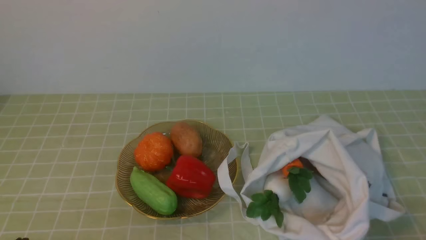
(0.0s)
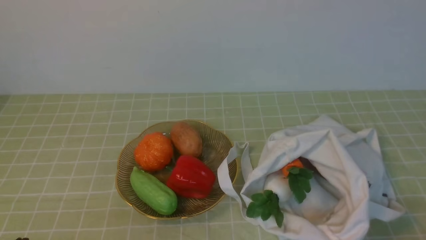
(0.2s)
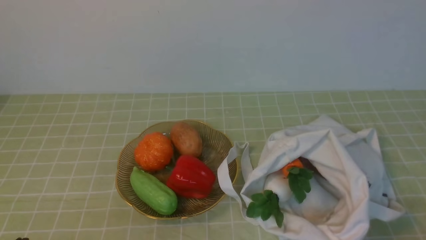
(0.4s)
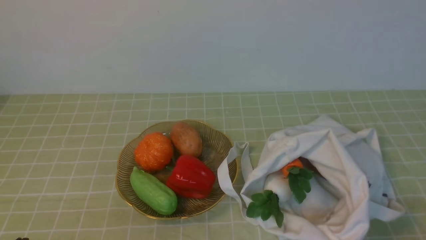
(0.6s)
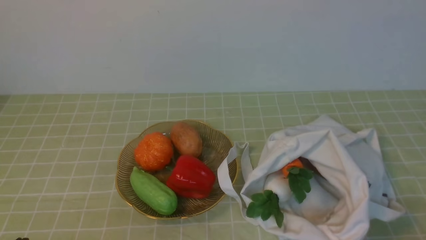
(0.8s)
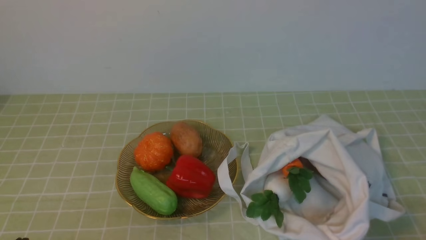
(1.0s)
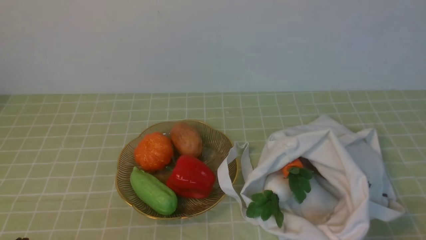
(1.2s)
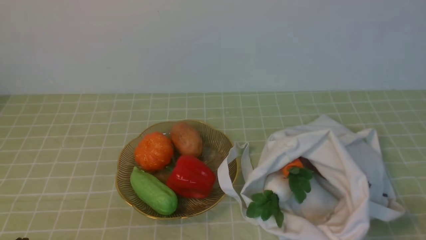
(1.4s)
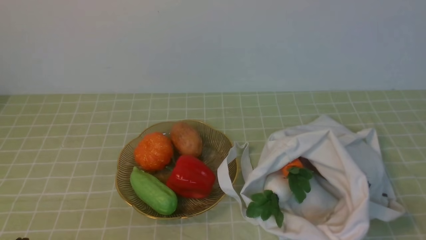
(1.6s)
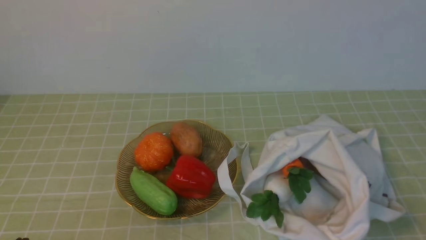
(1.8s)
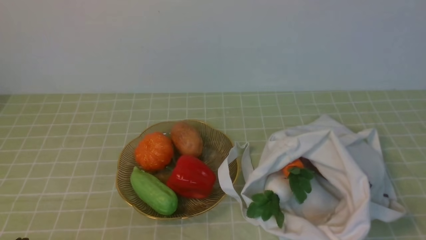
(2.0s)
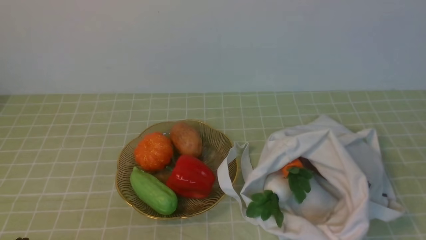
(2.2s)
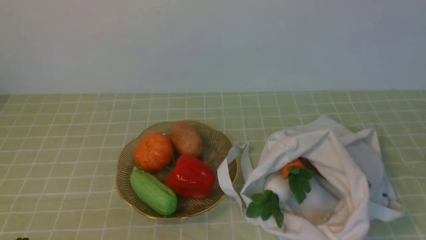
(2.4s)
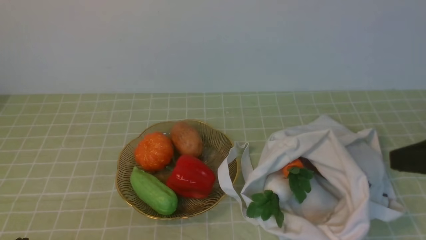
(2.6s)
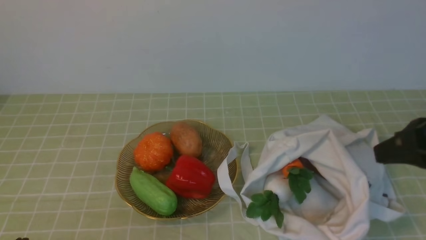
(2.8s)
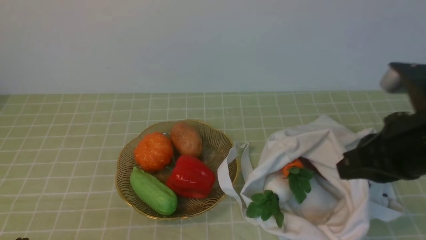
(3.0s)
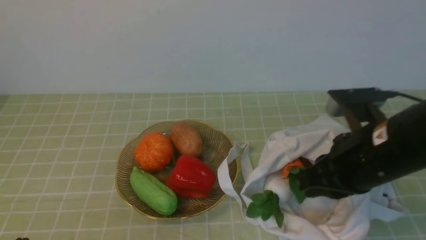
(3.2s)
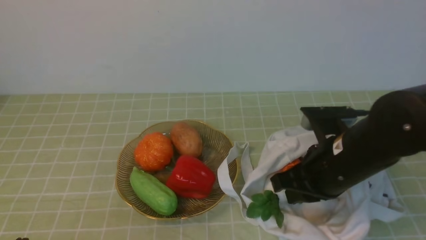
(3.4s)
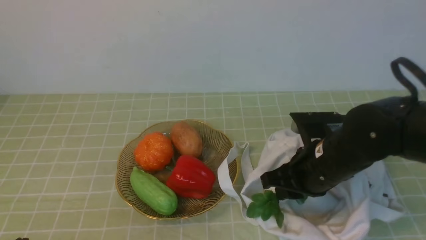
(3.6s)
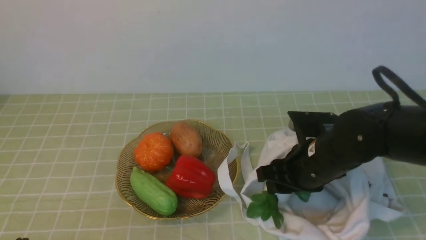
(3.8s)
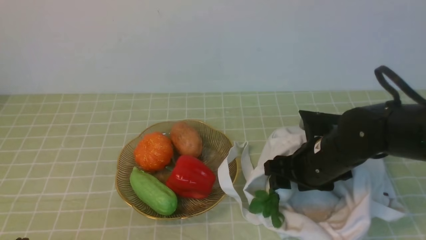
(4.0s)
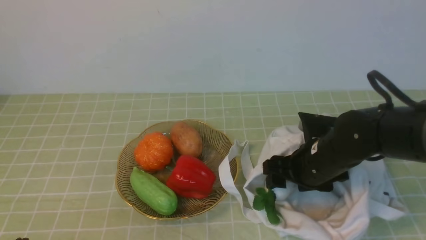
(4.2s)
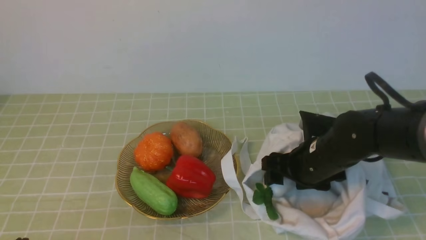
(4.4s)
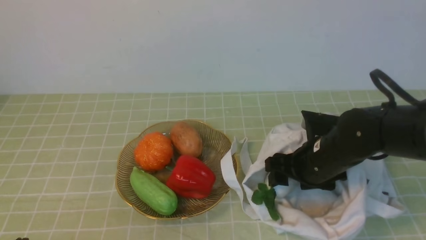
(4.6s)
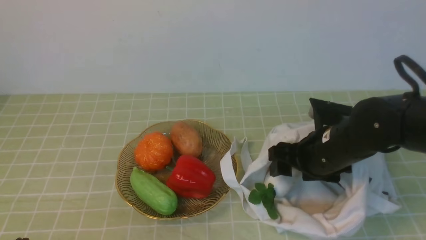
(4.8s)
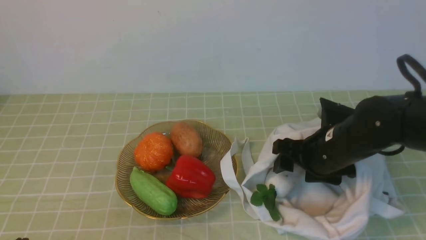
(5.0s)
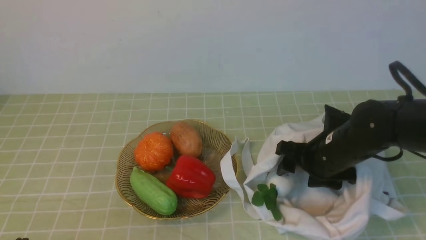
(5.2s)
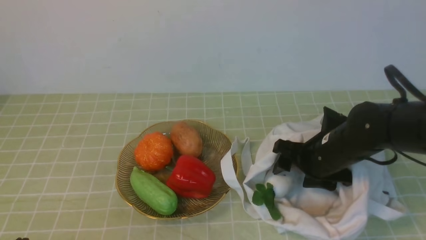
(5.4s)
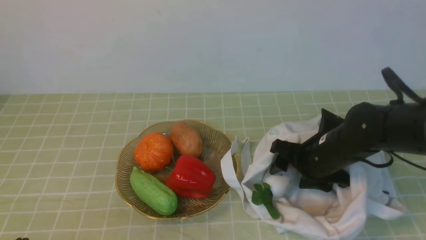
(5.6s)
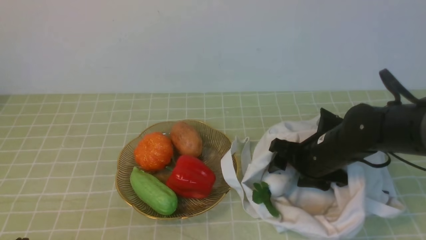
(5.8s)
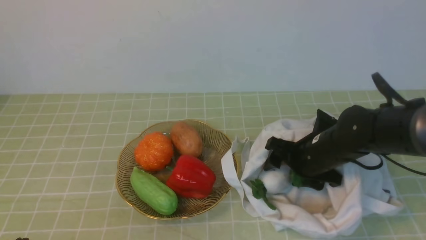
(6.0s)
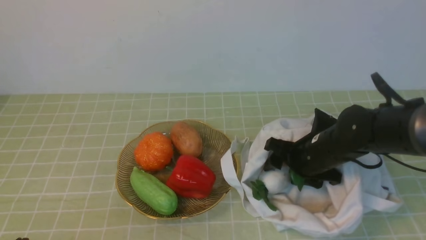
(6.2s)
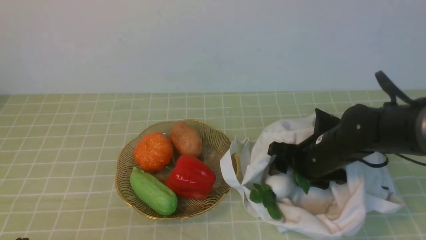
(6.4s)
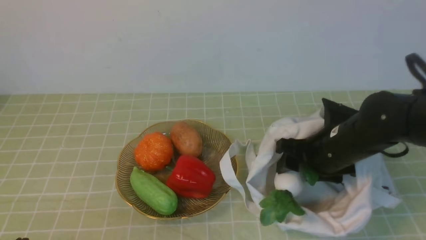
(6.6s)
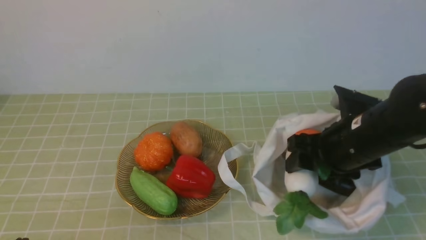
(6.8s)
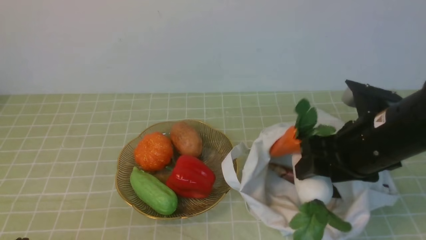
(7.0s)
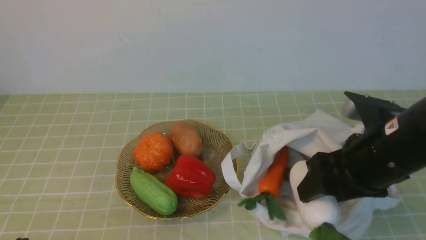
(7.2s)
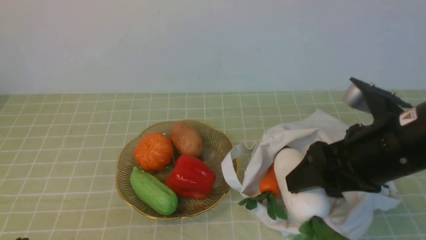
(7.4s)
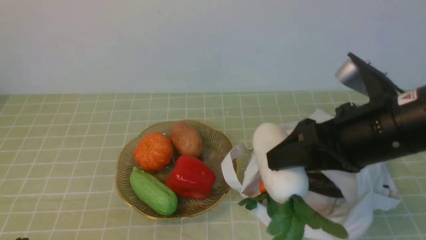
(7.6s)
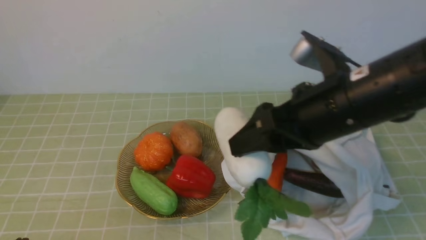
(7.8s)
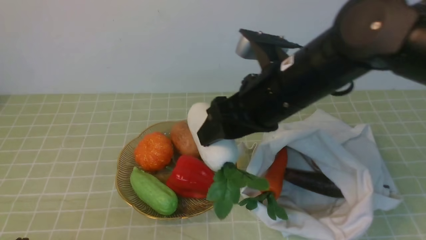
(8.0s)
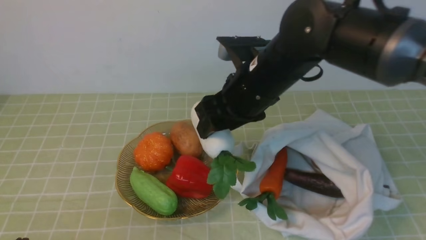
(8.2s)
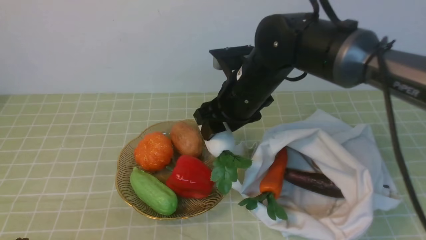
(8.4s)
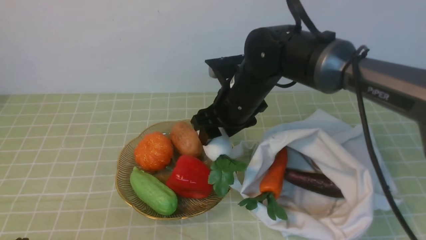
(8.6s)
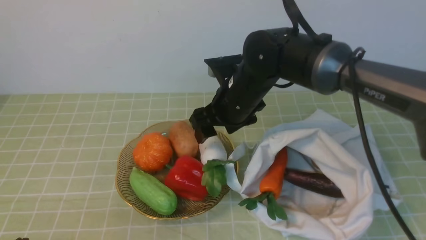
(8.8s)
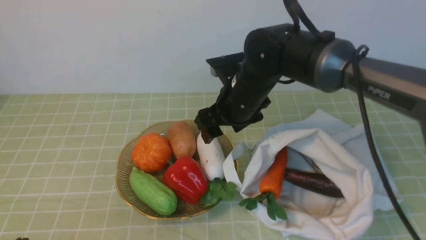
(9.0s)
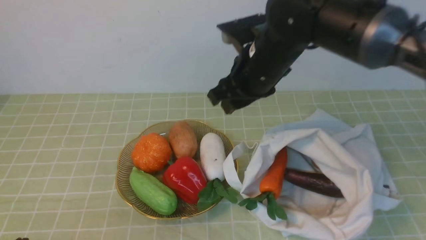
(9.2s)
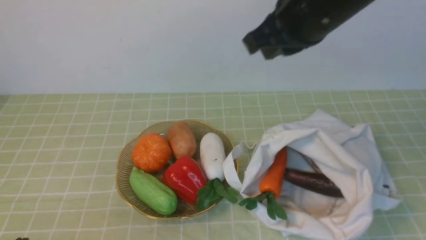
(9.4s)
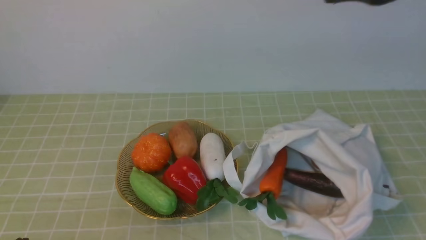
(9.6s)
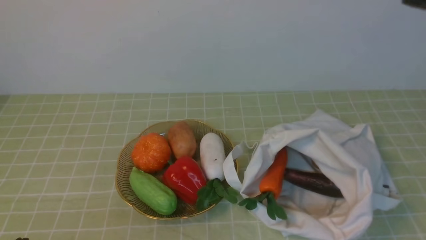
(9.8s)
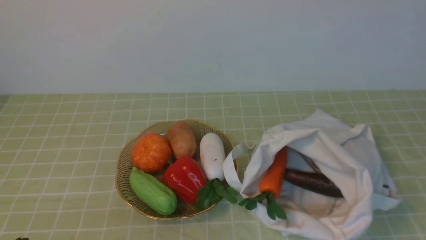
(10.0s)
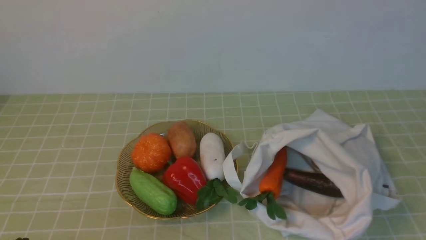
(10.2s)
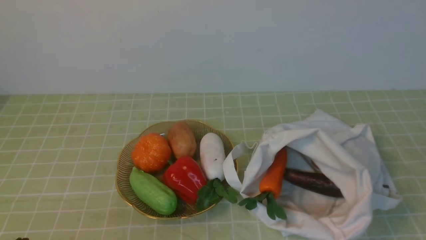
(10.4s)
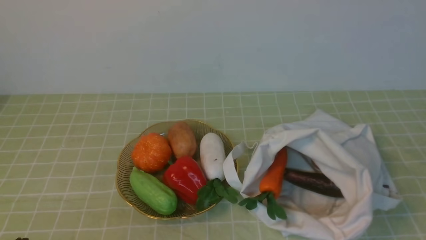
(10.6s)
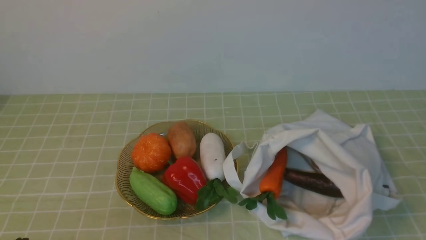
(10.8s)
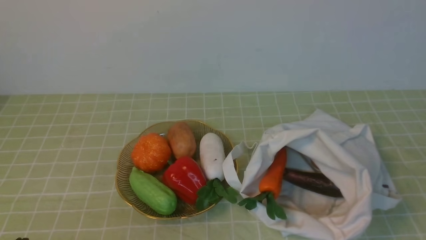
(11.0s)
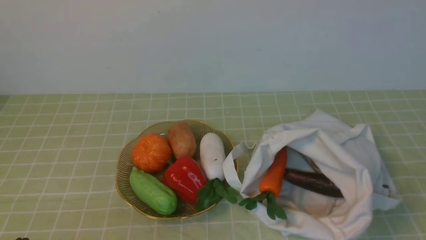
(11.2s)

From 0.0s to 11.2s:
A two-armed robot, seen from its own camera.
Task of the whole recording: take vegetables from bag on green coffee tablecloth place on plate.
Step, from 0.0s to 6.0s: Grasp the radish with right gripper.
Step, from 6.2s to 8.8s: Place the radish on the plate with right gripper.
From 1.6s to 3.2s: The right gripper heads forward, to the left and upward, covering some 20 cm.
From 3.2s to 4.8s: The right gripper travels downward and forward by roughly 10 cm, and opens.
From 4.8s to 6.4s: The grippers stay close to where they were, moving slightly.
From 6.4s to 8.0s: The right gripper heads upward and to the left, covering some 15 cm.
From 8.0s to 9.6s: The right gripper heads upward, to the right and backward, covering roughly 20 cm, and closes up.

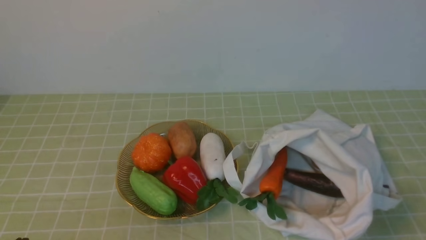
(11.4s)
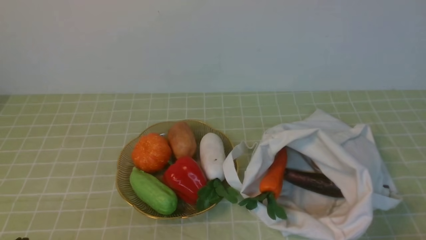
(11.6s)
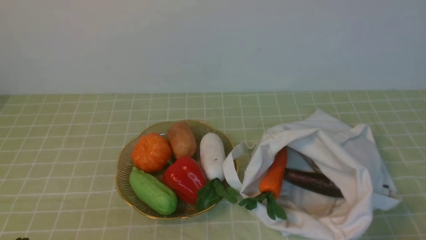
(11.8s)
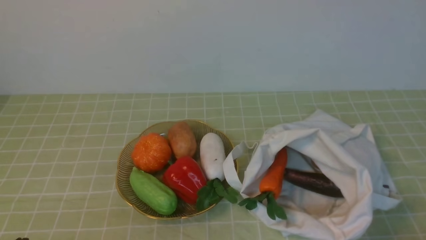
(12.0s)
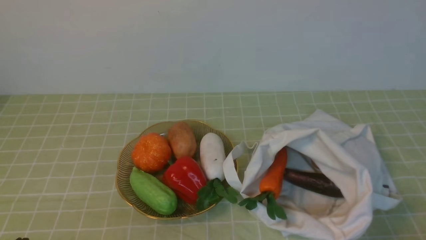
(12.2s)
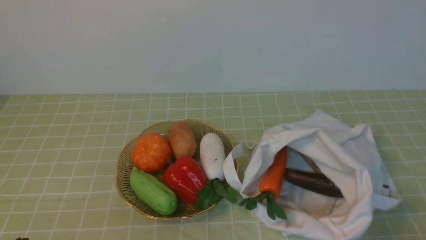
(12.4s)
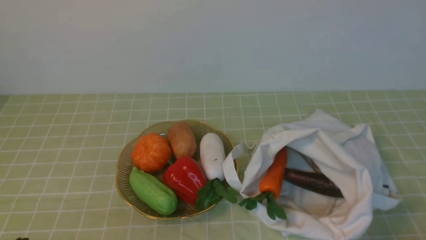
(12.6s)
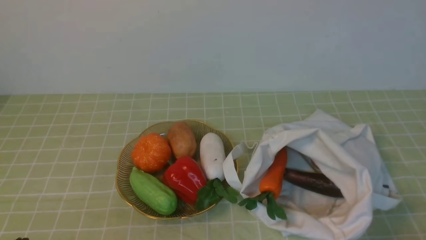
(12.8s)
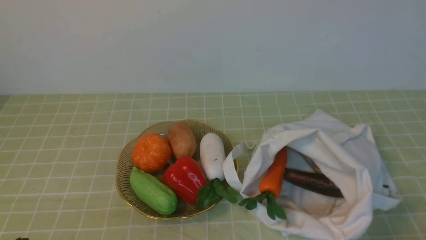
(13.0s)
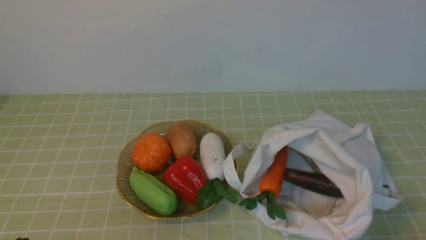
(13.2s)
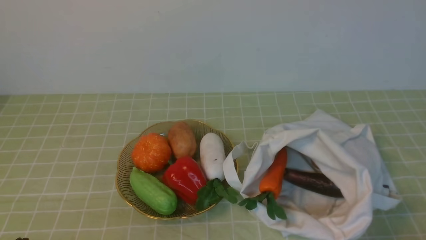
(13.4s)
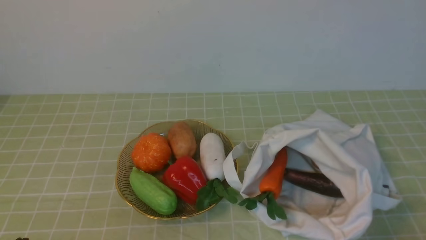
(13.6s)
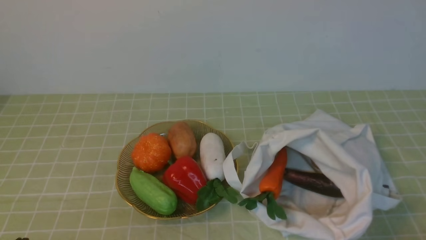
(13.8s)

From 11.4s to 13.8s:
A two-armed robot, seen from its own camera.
Task of the whole recording: take vegetables from bag on green coffee tablecloth place on plate.
From 12.6s to 13.8s: The two grippers keep their place.

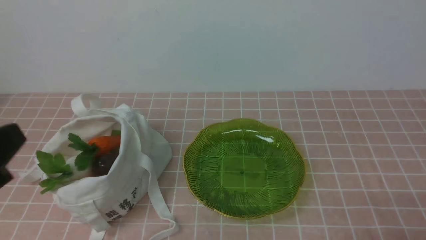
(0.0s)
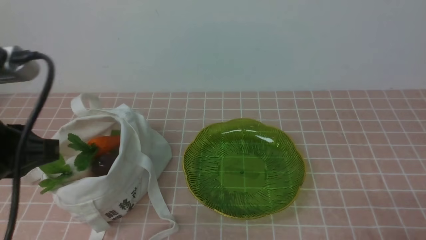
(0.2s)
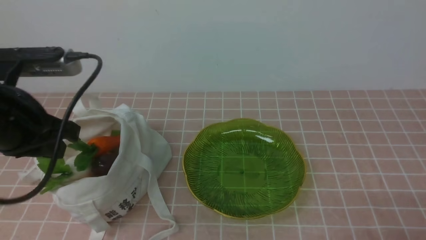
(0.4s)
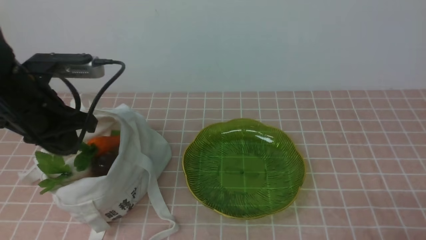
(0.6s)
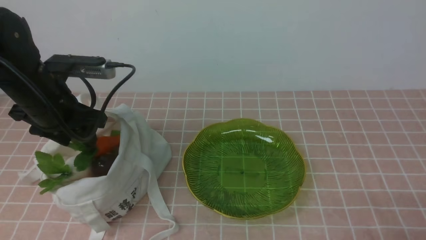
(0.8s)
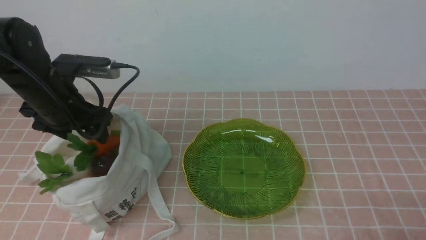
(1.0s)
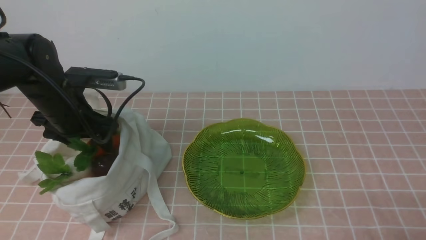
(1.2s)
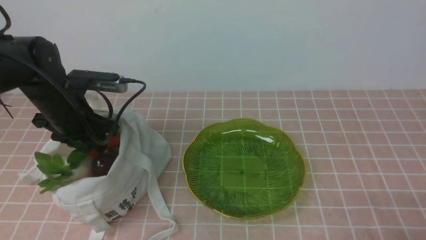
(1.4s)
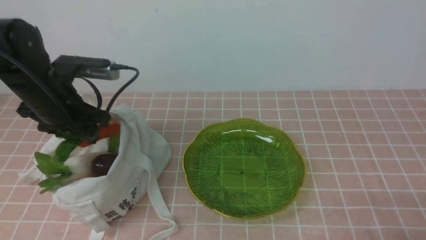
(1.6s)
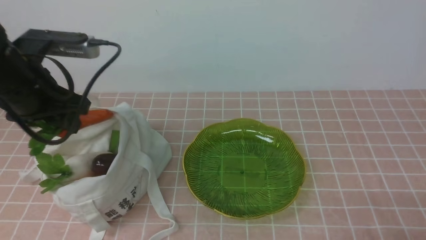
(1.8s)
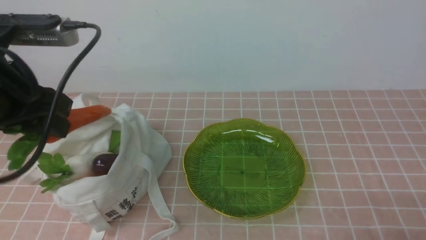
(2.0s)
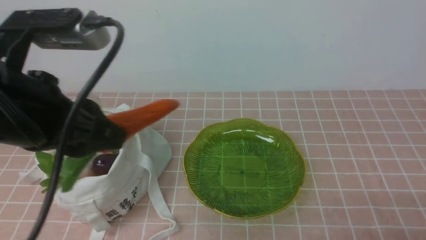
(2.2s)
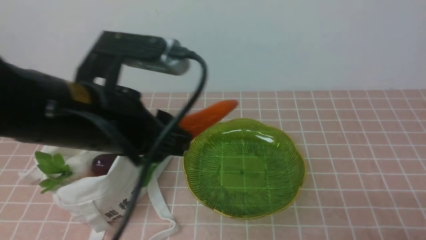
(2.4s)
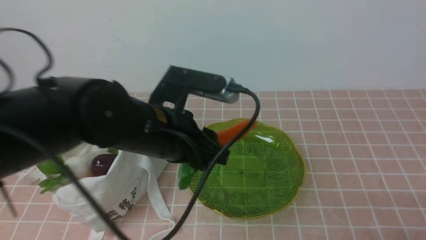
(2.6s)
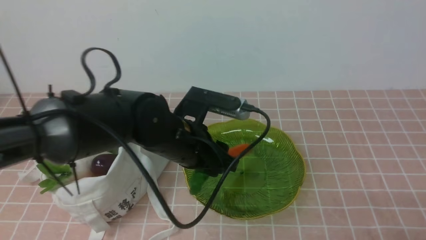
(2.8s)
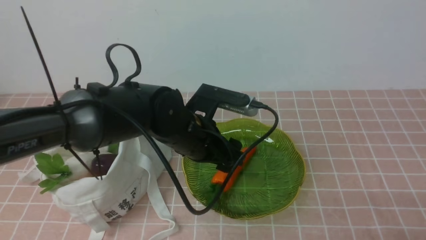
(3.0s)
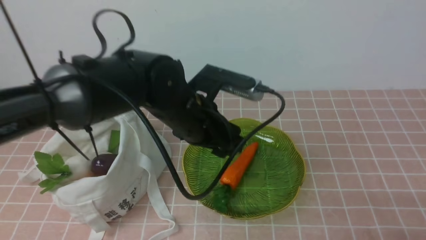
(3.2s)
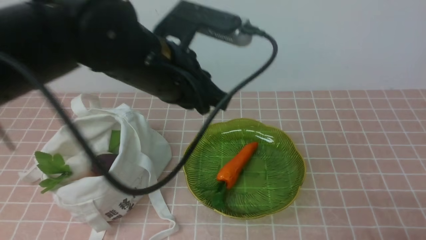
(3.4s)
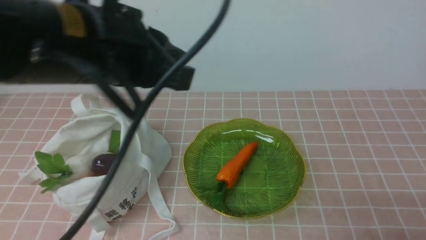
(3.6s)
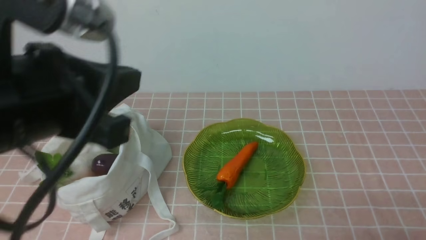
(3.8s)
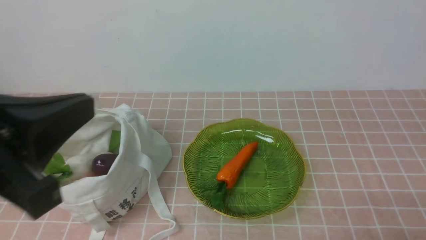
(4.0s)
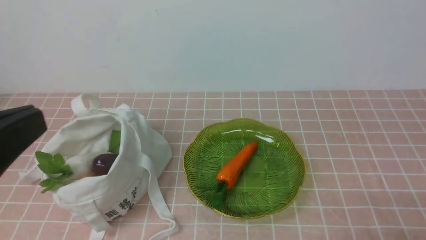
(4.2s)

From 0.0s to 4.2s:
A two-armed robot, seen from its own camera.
Task of the whole recording: take vegetables from bag on pink coffee tablecloth place on plate.
Step, from 0.0s to 1.2s: Grasp the carrot with left gripper.
Step, from 1.4s to 3.2s: Place the carrot on the plate with left gripper.
From 0.0s to 1.4s: The left gripper moves forward and downward, some 20 cm, and opens up.
From 1.4s to 2.8s: The left gripper shifts roughly 20 cm to the right.
From 2.8s to 4.2s: The left gripper moves backward, to the left and upward, approximately 30 cm, and closes up.
